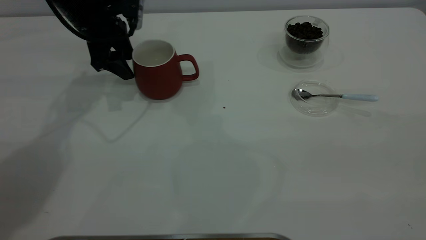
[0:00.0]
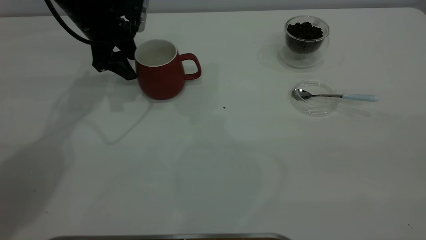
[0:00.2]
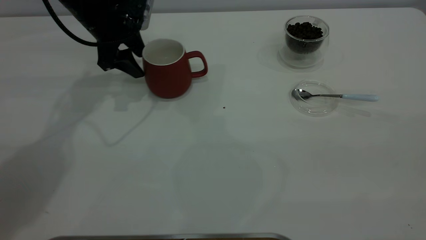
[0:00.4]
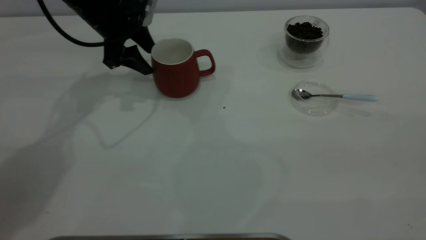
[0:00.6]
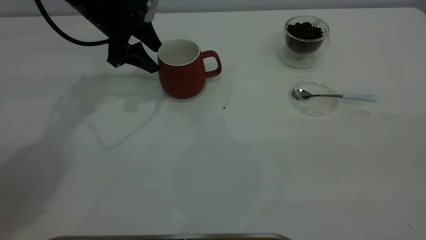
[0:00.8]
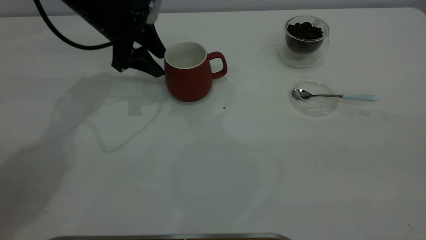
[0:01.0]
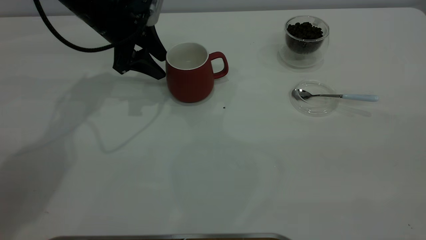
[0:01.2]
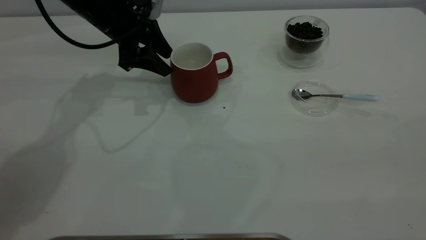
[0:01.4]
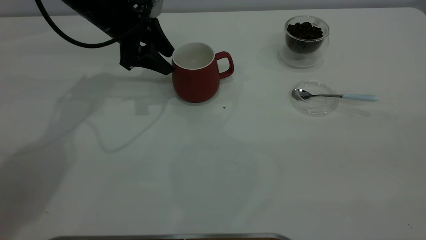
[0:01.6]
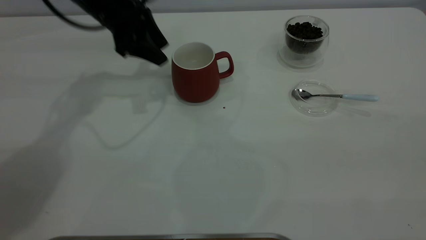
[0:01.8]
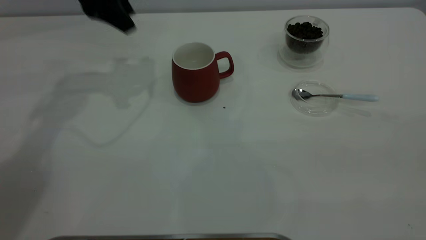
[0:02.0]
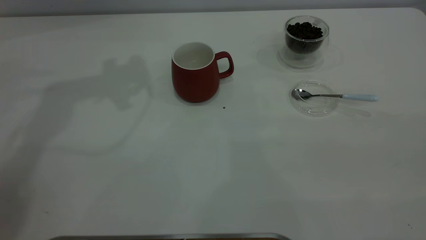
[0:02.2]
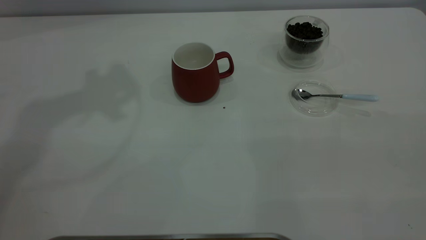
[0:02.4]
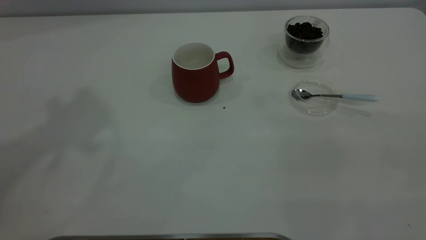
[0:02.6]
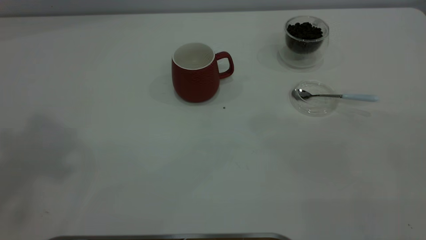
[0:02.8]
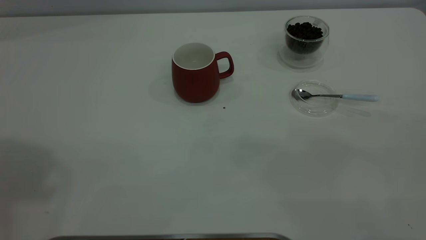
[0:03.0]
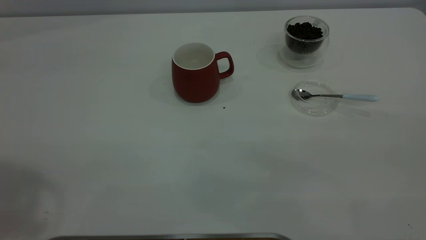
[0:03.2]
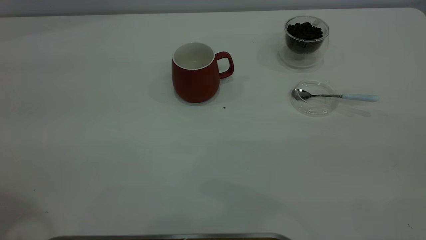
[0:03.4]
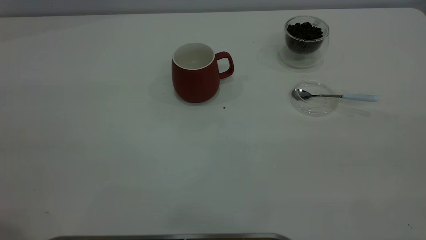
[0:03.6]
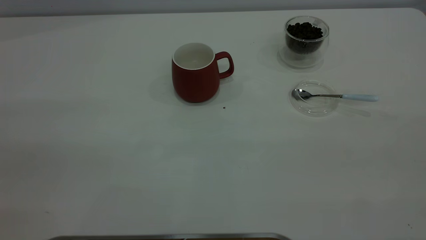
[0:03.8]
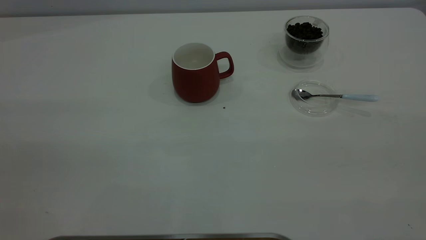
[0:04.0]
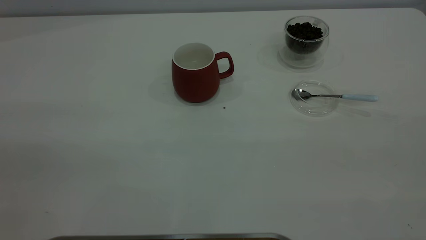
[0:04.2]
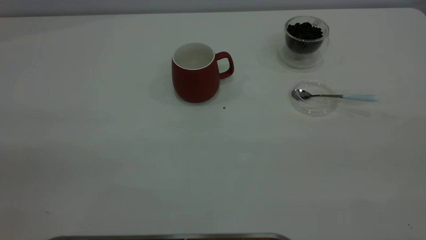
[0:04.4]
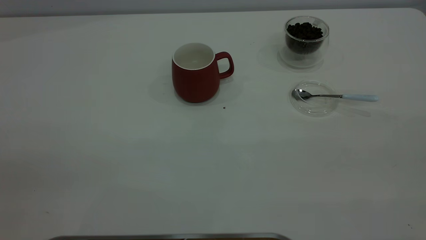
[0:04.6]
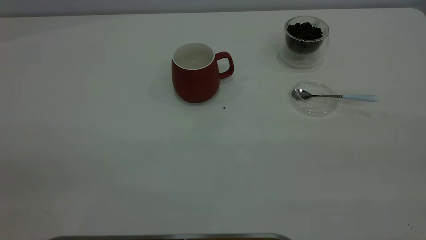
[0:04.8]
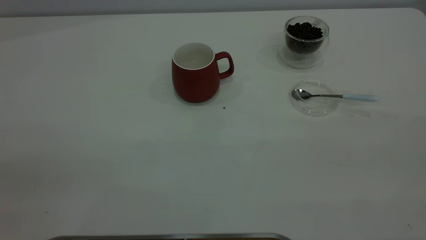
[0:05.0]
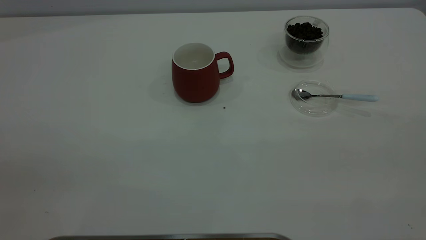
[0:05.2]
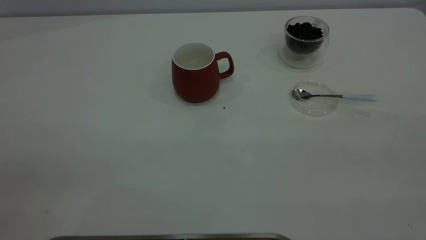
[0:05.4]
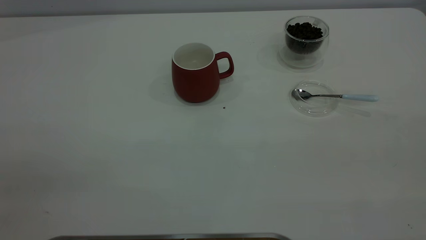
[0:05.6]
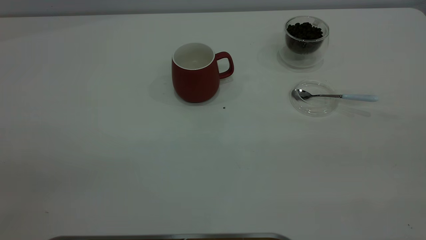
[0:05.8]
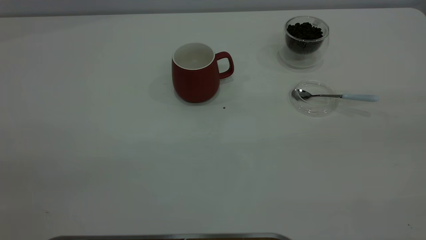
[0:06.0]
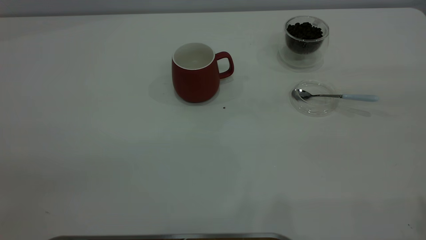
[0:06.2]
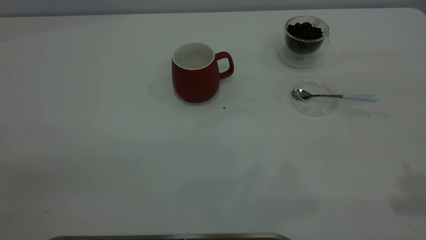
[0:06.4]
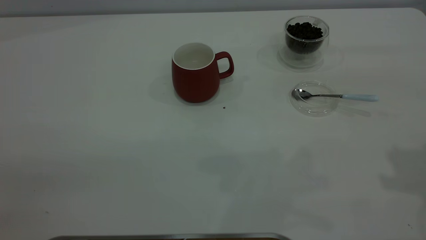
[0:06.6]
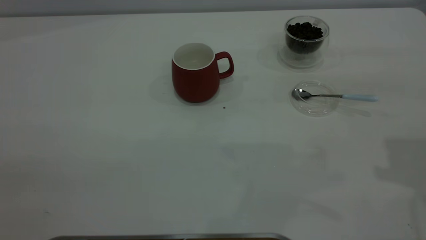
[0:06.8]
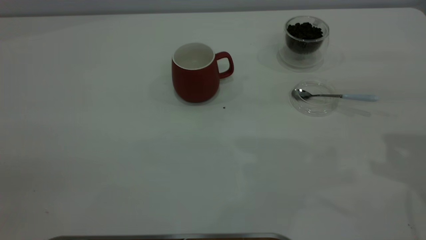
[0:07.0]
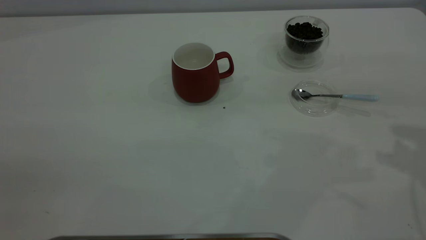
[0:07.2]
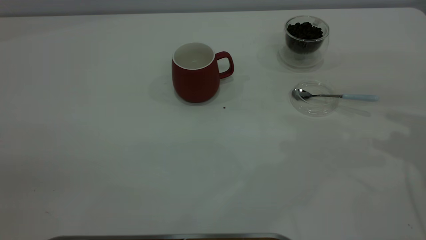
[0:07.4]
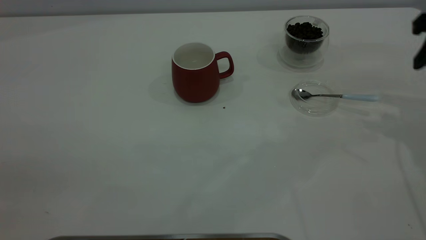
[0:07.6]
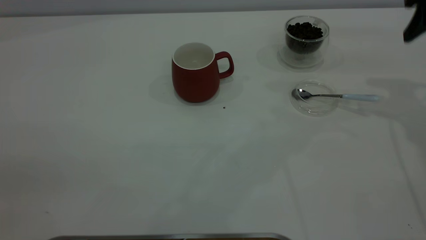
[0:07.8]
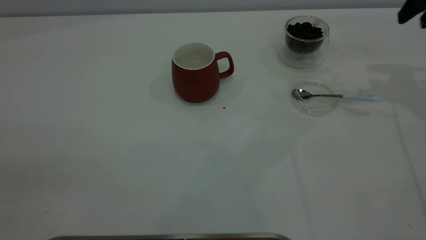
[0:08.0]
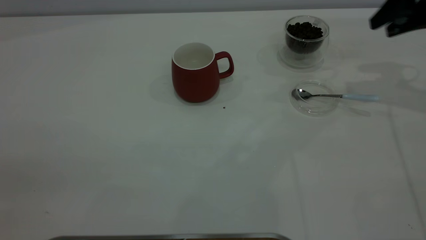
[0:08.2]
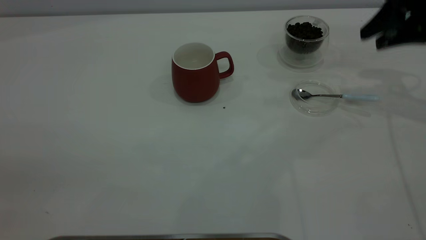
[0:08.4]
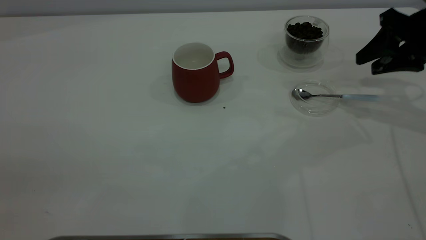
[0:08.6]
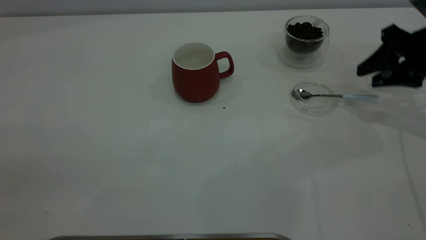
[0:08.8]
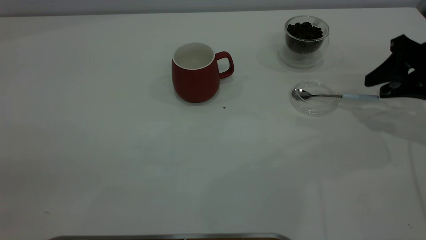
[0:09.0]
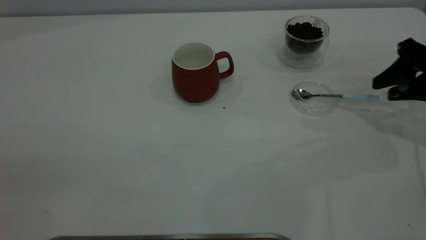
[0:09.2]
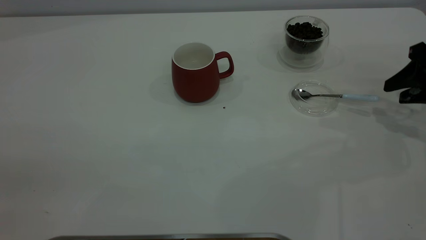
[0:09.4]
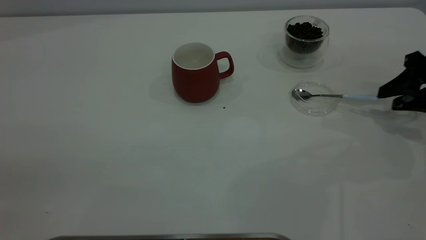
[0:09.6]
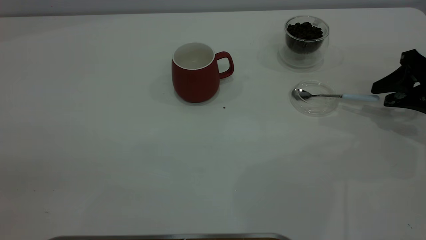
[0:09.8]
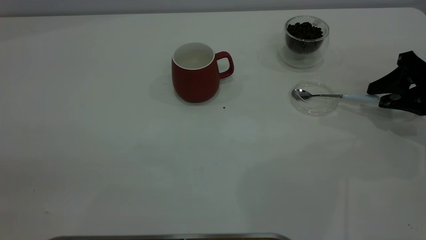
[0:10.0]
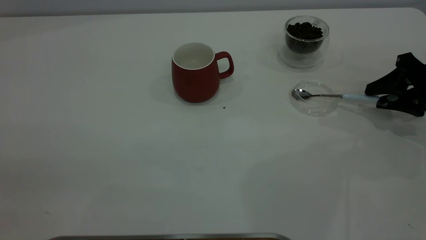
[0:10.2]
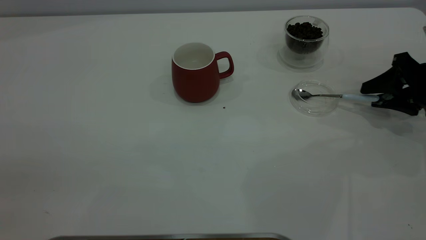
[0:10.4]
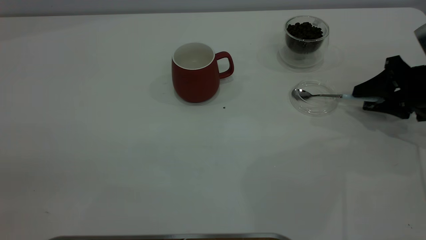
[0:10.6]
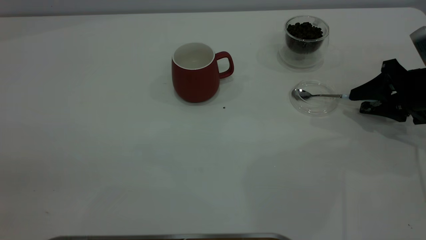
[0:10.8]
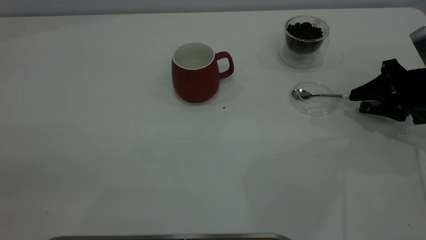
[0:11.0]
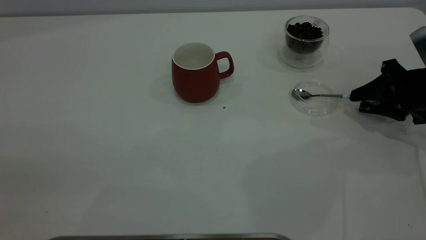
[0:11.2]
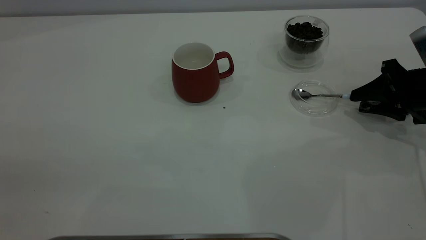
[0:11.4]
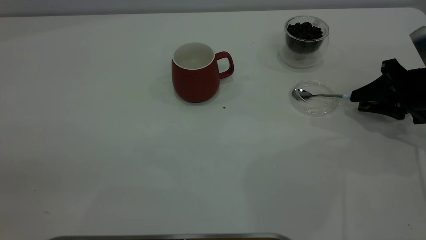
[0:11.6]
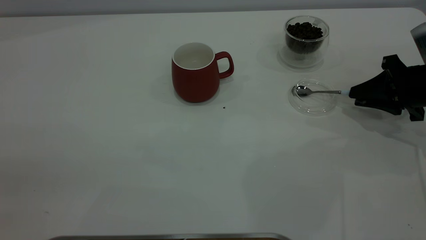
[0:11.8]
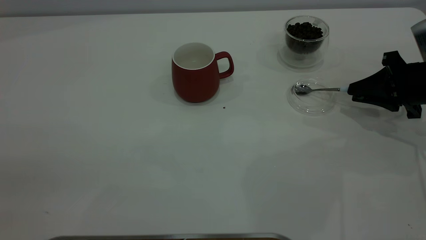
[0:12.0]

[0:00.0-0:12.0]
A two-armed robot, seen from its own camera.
Task of the whole recording: the left gripper place the red cup in the center of the table, the right gripper take the blue spoon from the cup lid and scoop out the coffee beans from the coffee cup and put them into the red cup, the right gripper put the spoon back into the cup lid.
0:00.0 to 0:01.6: There are only small adjustments of the grippers.
0:01.6 to 0:03.0: The left gripper shifts approximately 50 cm upward and backward.
0:07.6 to 0:09.0: The right gripper travels downward by some 10 cm.
0:09.0 to 0:10.4: The right gripper heads downward, covering some 5 cm.
0:10.4 to 0:12.0: The right gripper closes its fingers.

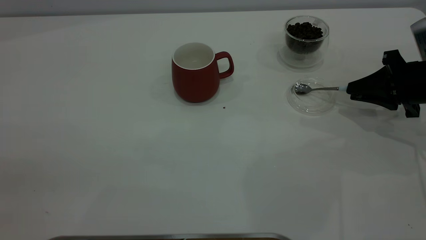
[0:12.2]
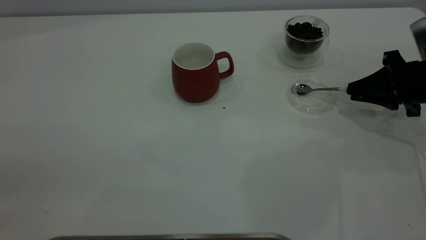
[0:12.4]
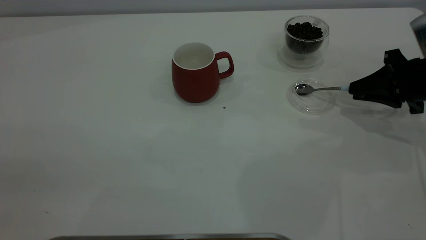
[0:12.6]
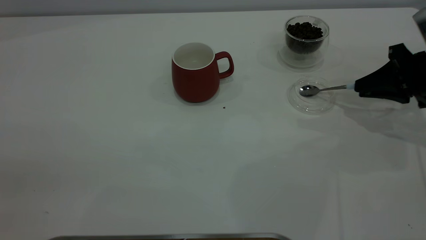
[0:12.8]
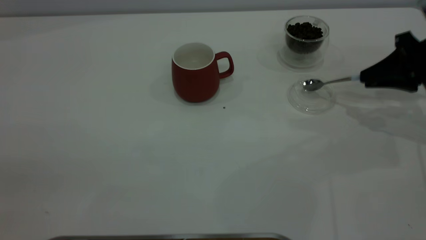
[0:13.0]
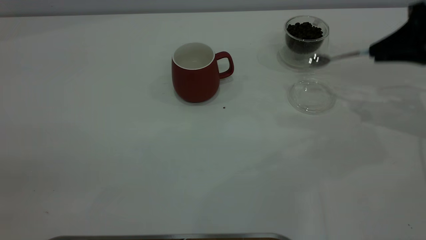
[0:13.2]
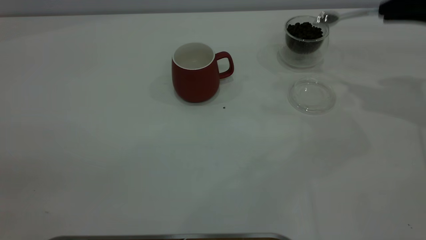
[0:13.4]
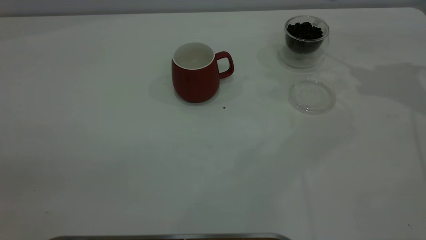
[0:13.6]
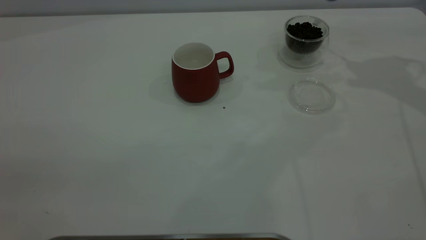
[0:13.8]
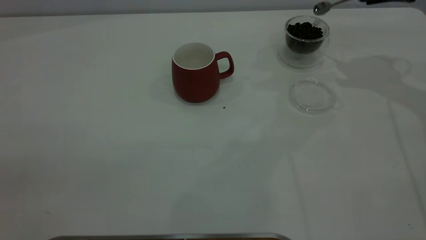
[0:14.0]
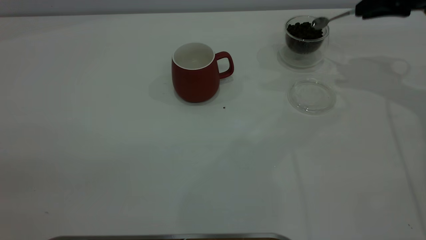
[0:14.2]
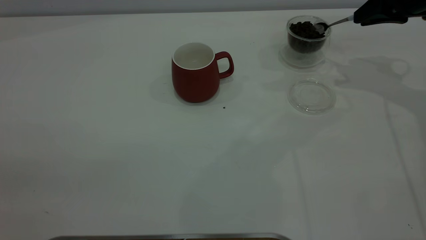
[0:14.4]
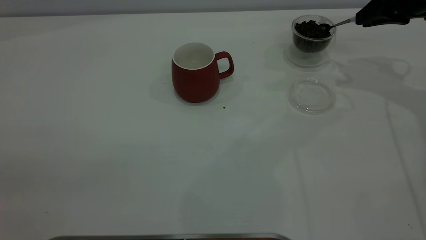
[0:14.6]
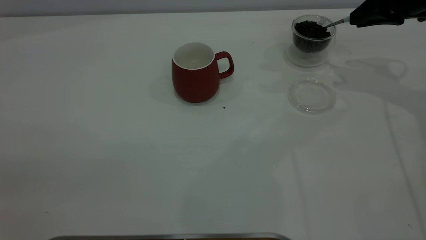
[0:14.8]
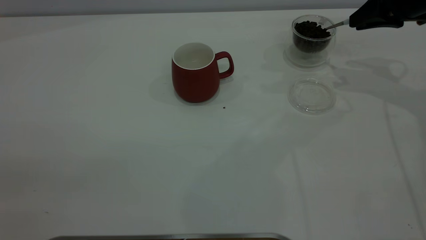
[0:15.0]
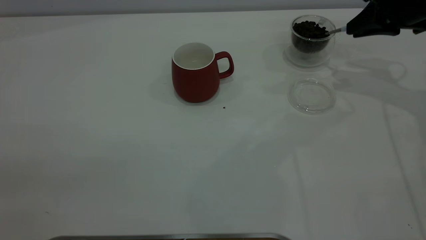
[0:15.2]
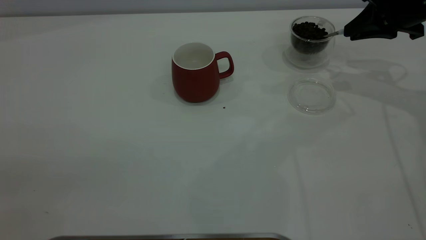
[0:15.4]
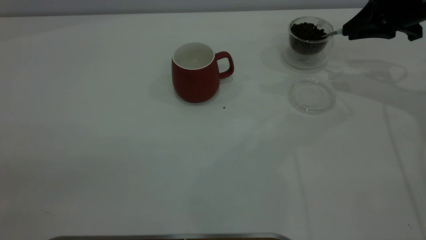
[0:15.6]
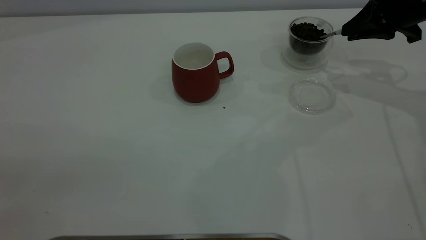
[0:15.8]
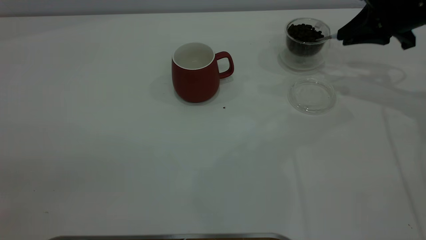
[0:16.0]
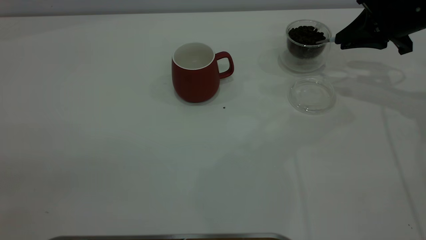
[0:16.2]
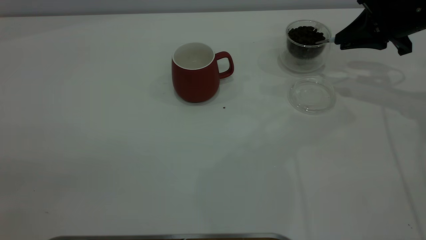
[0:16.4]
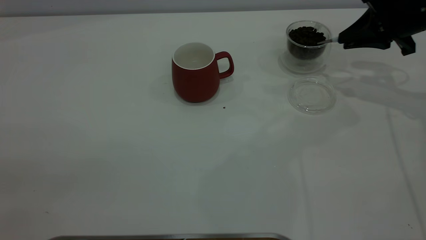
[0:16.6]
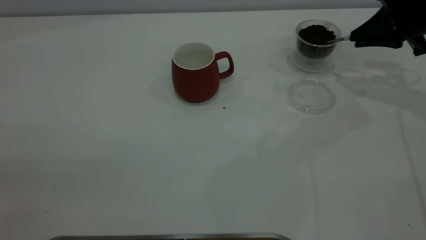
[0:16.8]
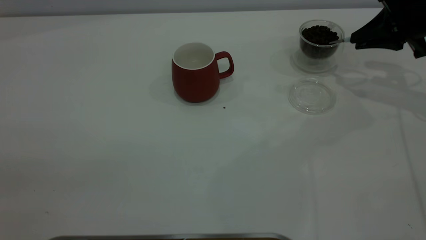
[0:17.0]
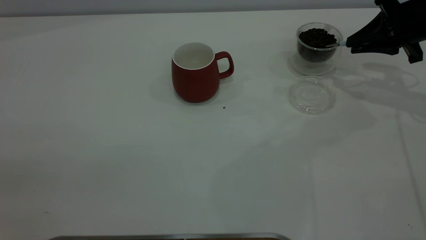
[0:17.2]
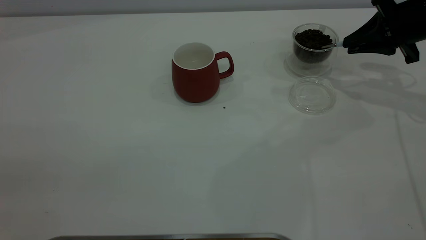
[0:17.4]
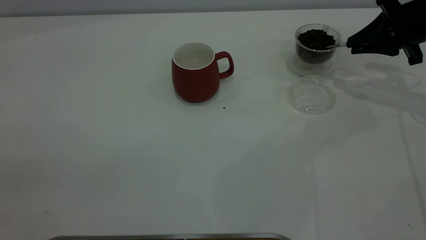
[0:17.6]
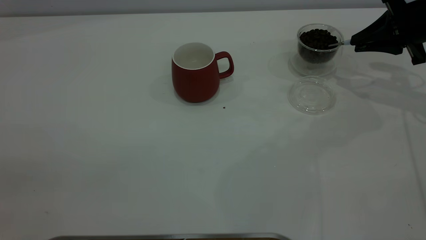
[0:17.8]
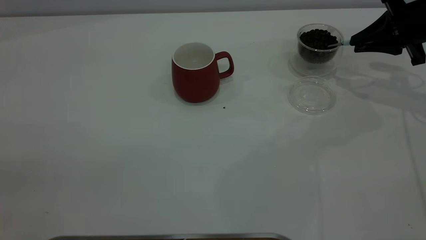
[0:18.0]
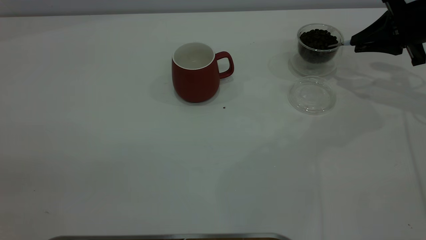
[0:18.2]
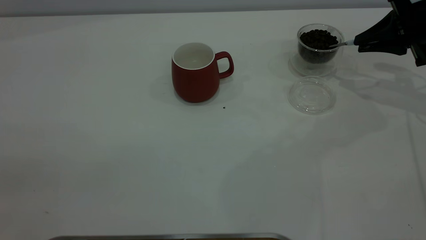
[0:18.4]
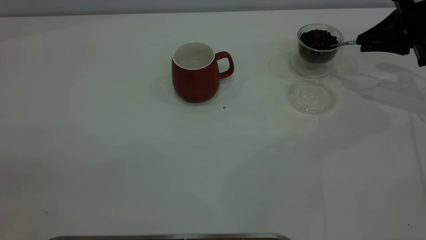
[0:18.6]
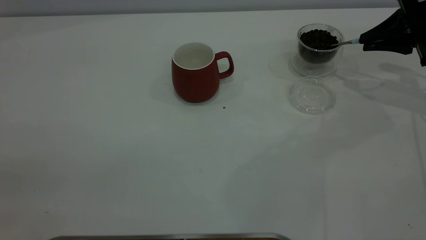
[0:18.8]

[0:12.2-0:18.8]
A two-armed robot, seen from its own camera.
Task of the whole recording: the left gripper place the red cup in the center of the table, the right gripper take the blue spoon from the cup lid and scoop out the coffee beans from the coffee cup and put them into the red cup, the right gripper put the spoon back into the cup lid.
0:12.2 to 0:13.8: The right gripper is displaced upward and forward by some 20 cm.
0:13.8 to 0:15.4: The right gripper is displaced downward by approximately 5 cm.
0:15.4 to 0:17.2: The grippers stay close to where they were, moving slightly.
0:17.2 to 0:18.8: The grippers stay close to where they were, moving slightly.
